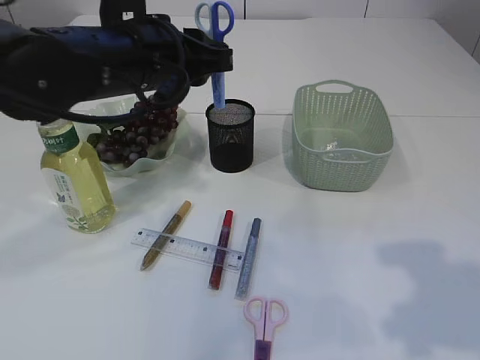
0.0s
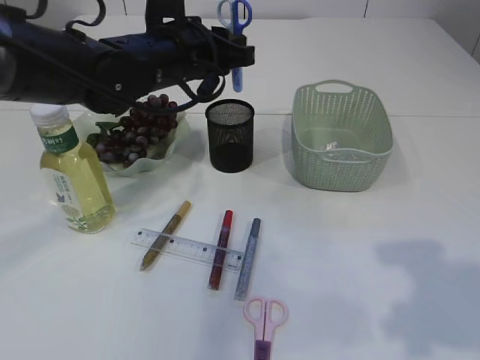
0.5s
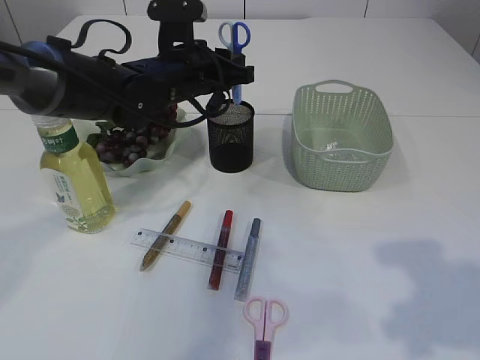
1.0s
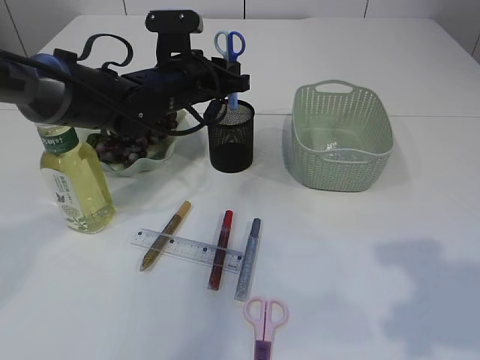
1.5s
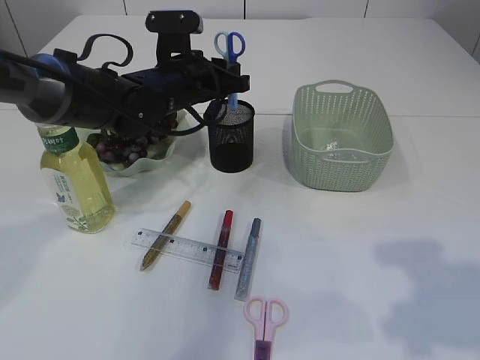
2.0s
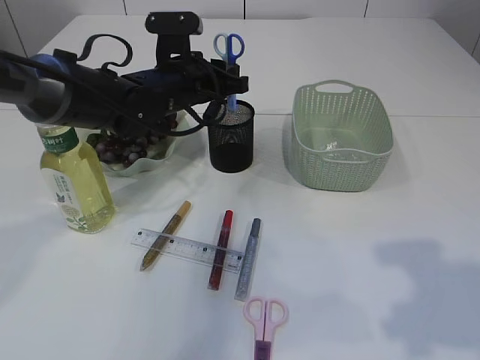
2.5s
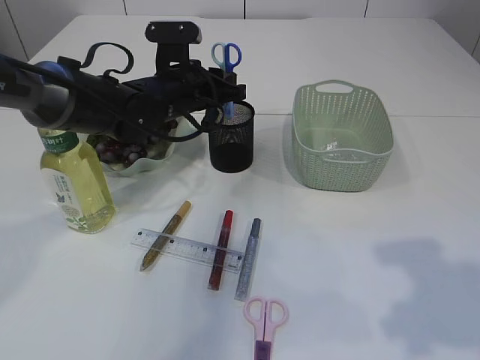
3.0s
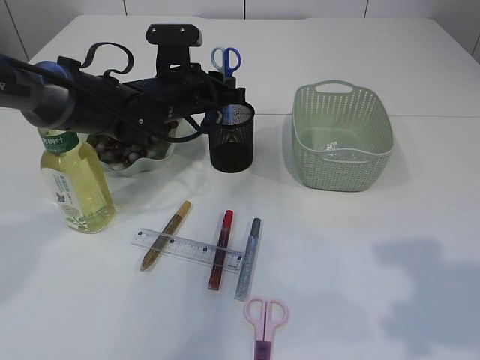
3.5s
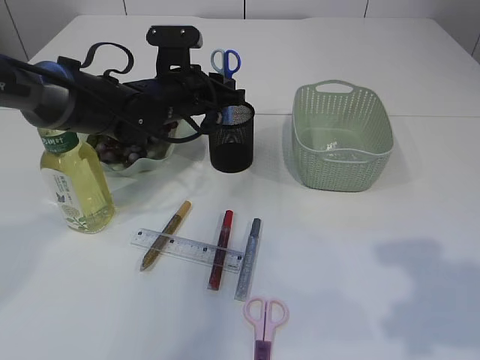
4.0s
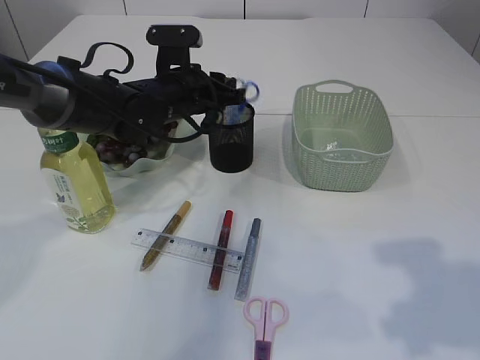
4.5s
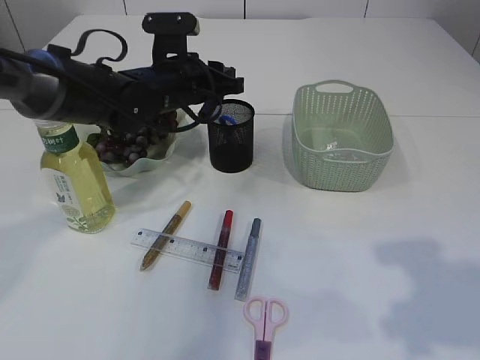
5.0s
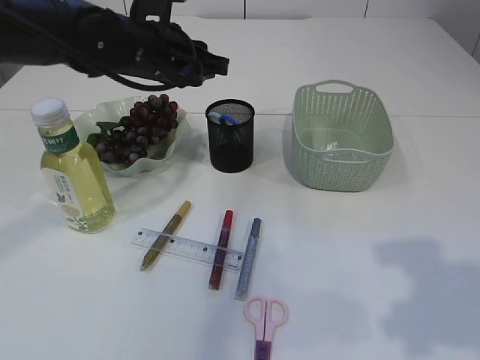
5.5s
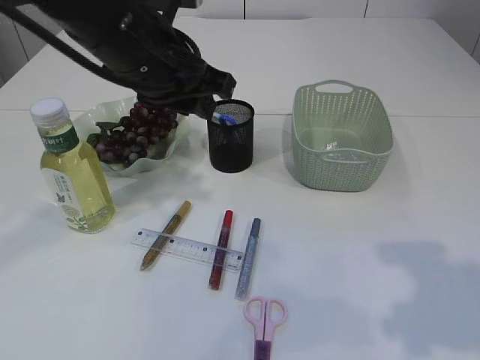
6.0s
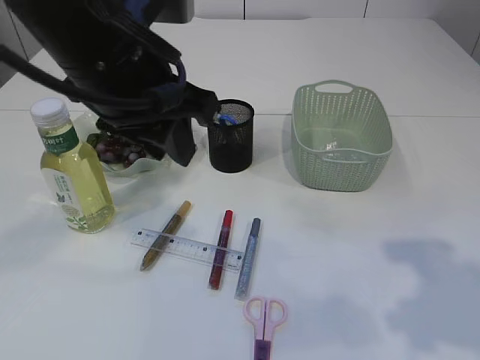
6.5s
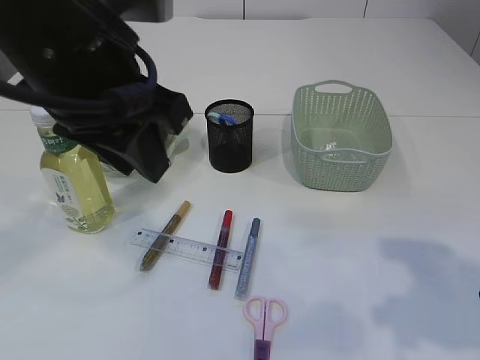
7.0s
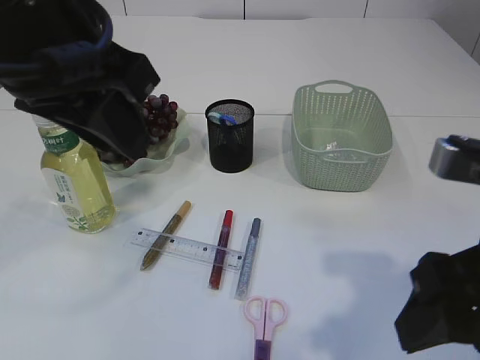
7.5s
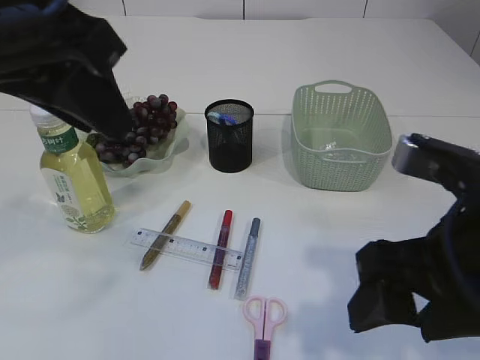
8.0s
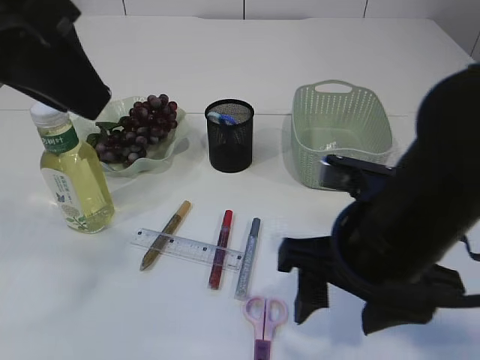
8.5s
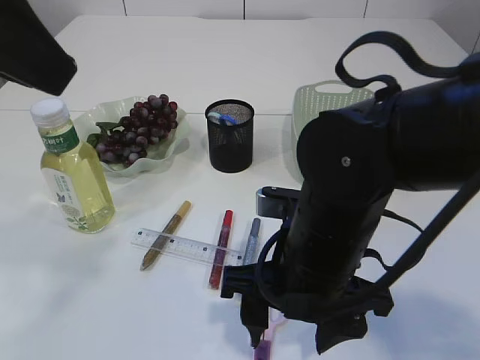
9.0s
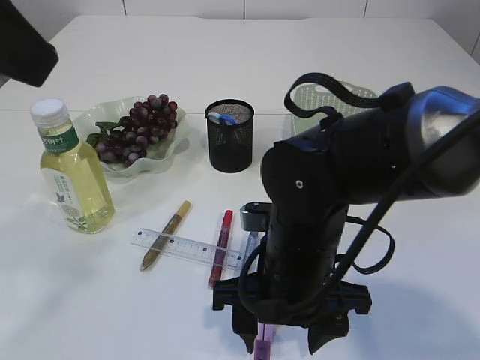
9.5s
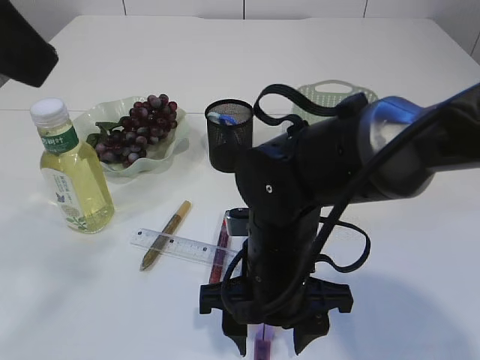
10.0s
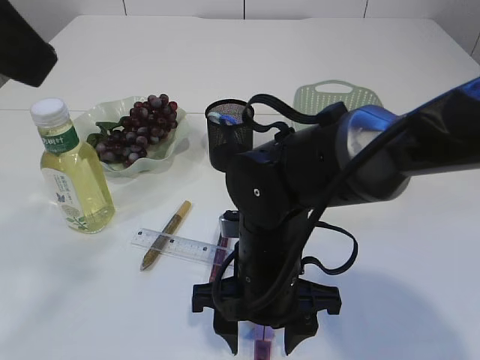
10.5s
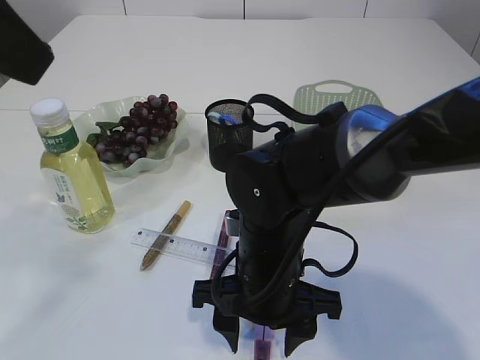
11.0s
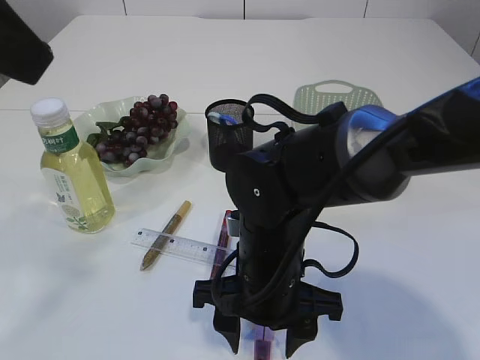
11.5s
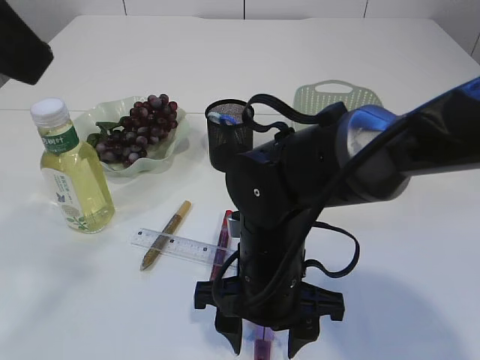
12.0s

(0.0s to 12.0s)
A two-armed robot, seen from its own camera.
Step, 0.0s - 5.0s: Place the blue scissors into the pen holder.
0.0s - 2.0s: The left gripper goes approximately 15 cm forward and downward.
2.0s - 4.0s: There are only small adjustments of the grippers.
4.0s - 6.0s: The left gripper heads upward and backward, covering about 15 cm.
6.0s - 8.0s: The left gripper moves backward and upward, approximately 15 cm, while the right gripper goes some 10 cm to the left.
8.0s - 10.0s: The left gripper ends up about 5 cm from where it was. Meanwhile the right gripper shifts some 20 cm to the left, downward and forward.
10.0s - 12.0s: The grippers stay close to where they were, moving slightly.

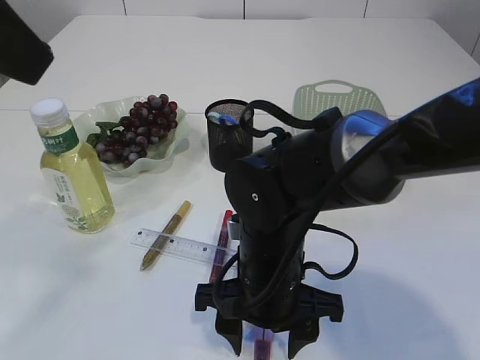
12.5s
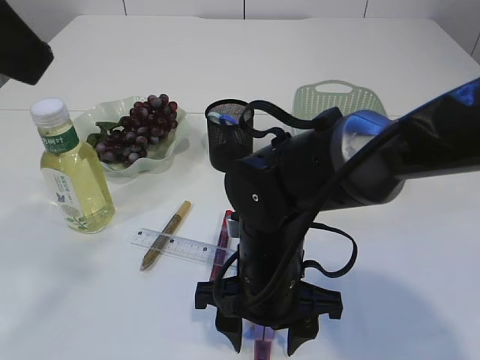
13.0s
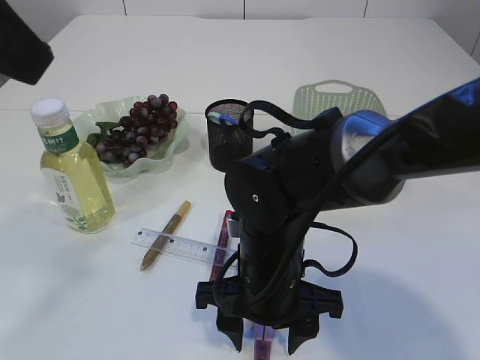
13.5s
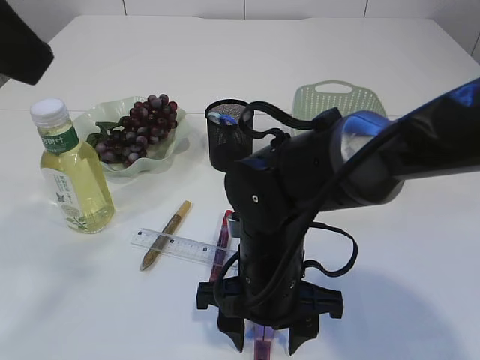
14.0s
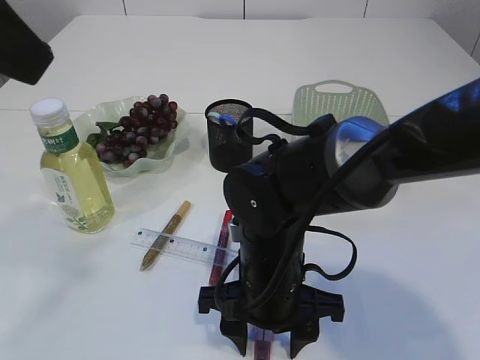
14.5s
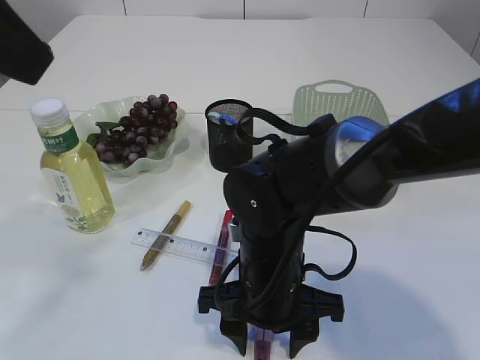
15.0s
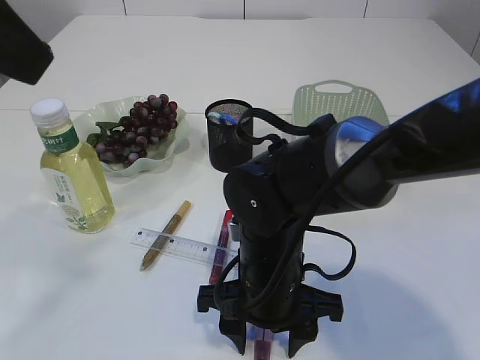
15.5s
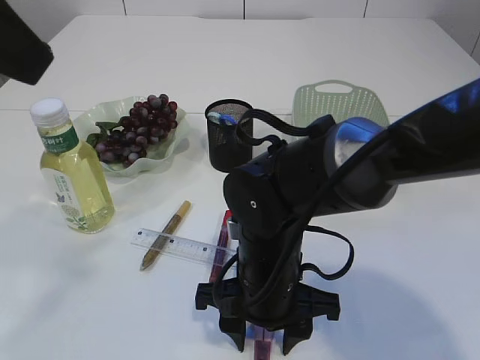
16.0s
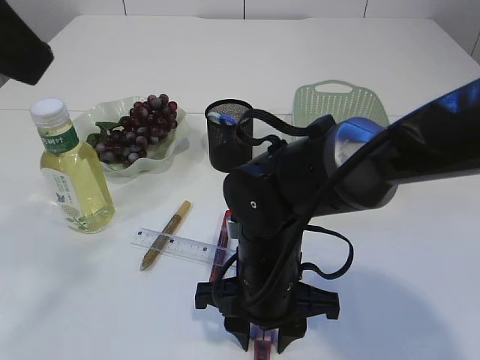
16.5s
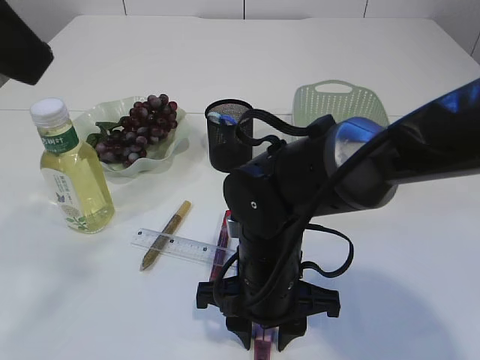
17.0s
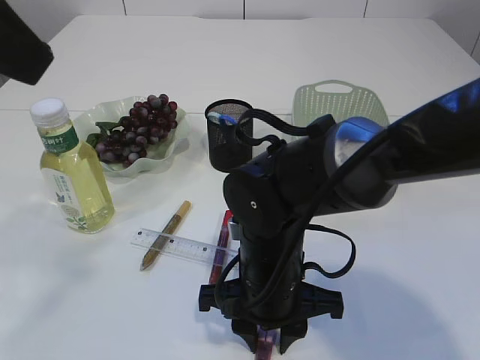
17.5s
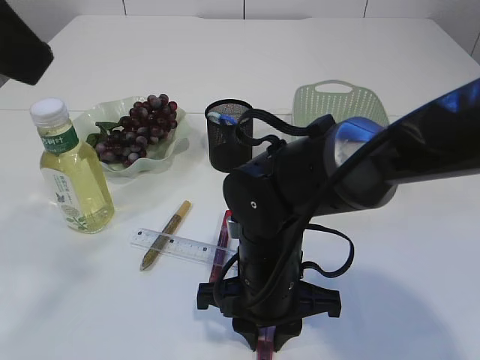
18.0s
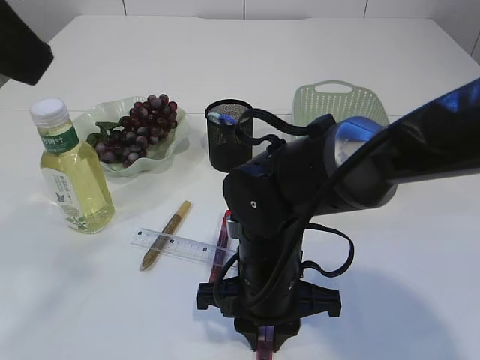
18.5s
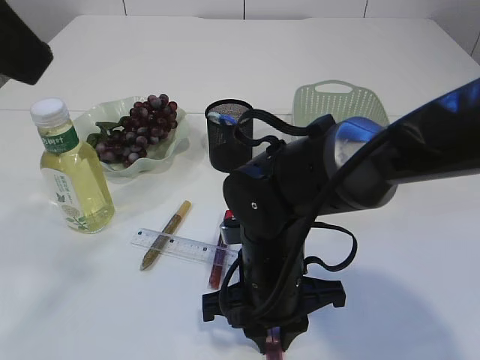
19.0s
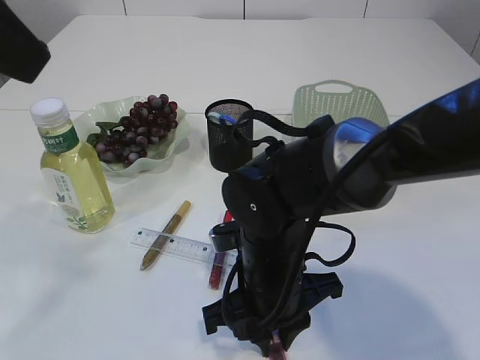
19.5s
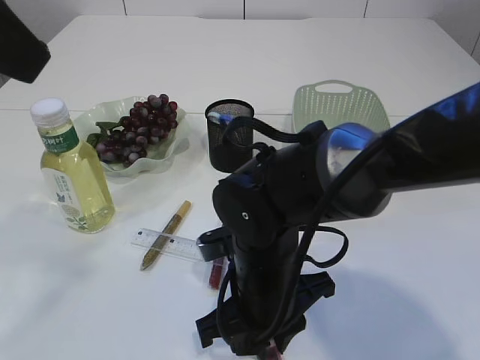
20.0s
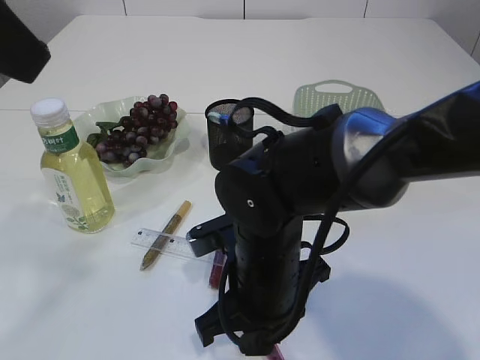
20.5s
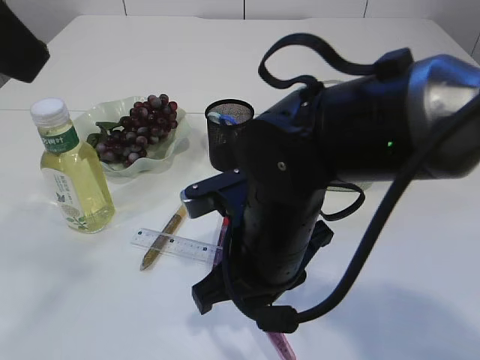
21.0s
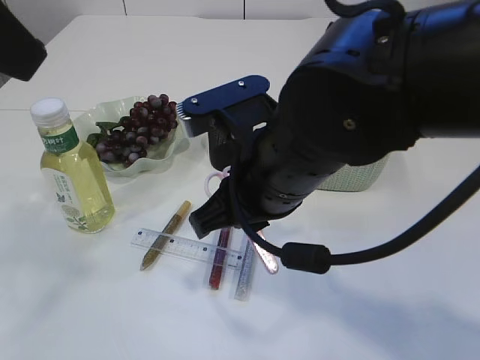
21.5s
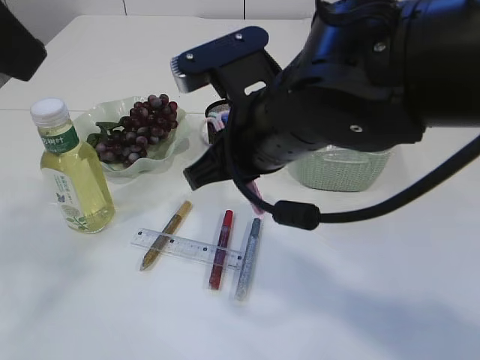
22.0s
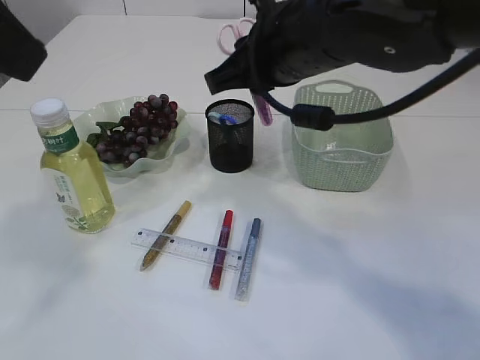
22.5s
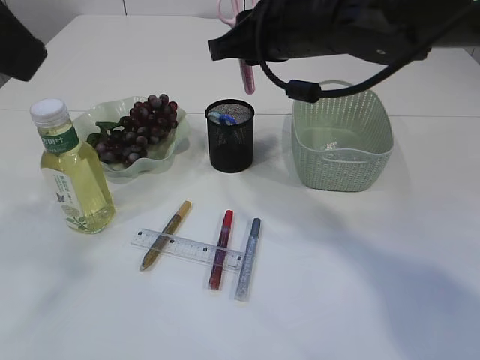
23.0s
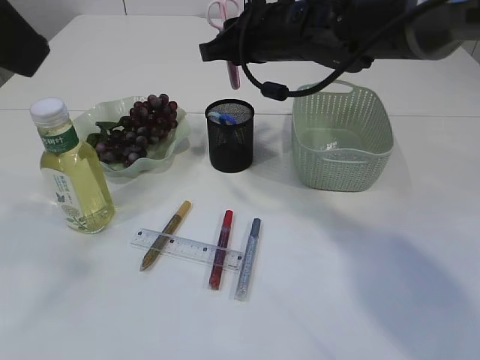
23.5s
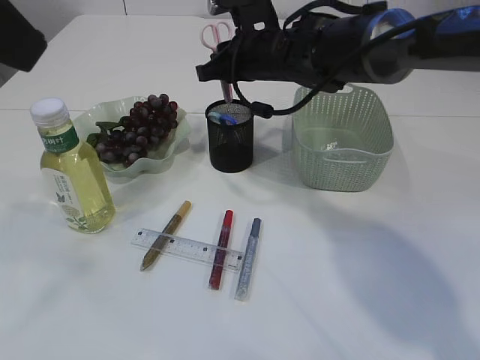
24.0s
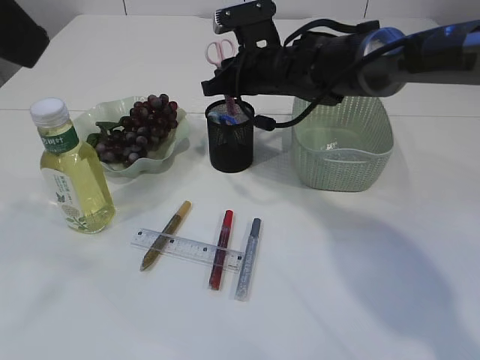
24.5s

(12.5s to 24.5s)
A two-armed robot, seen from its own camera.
Step, 12.5s - 21.0s: pick up the pink scissors.
12.5s - 16.5s: Both grippers stay about where they are.
16.5s - 18.5s: The right gripper closes up.
20.5s - 22.5s: The right gripper travels upward and forward by about 20 cm.
22.5s - 24.5s: The right gripper moves forward and downward, approximately 20 cm.

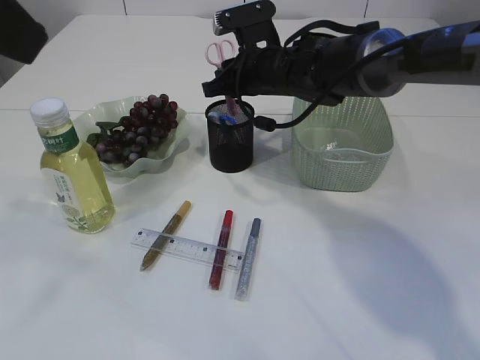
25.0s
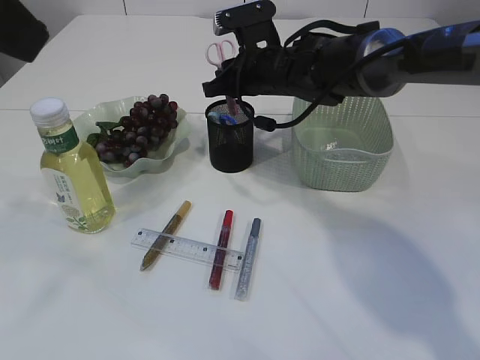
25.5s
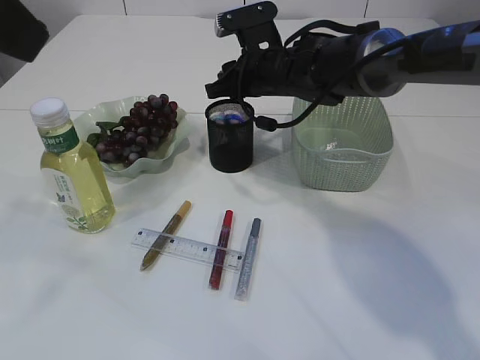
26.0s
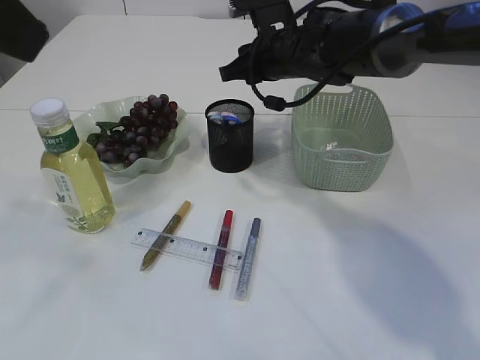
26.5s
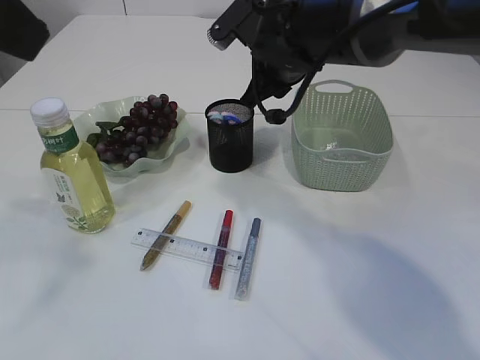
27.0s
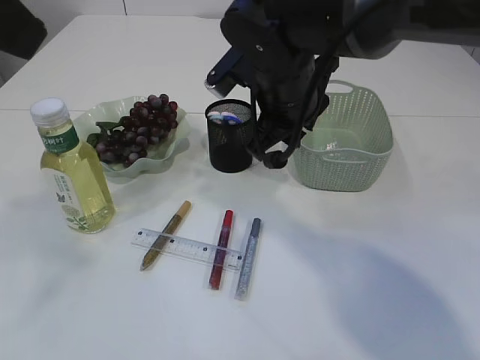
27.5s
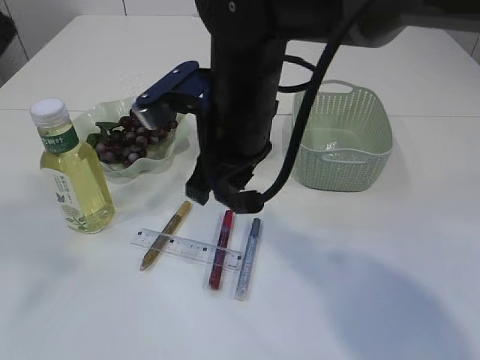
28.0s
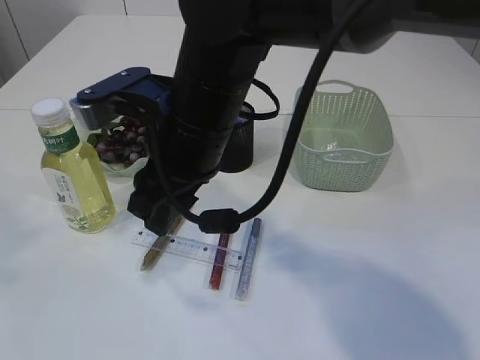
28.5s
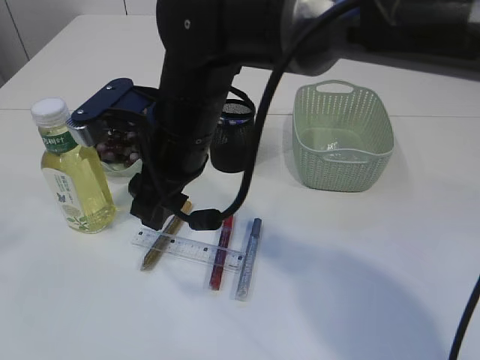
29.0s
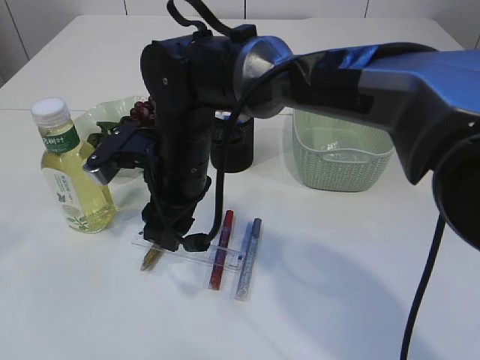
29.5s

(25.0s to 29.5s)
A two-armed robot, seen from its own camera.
25.0s - 27.0s: The right gripper shifts by approximately 5 cm.
27.0s - 29.5s: The left gripper travels to the left and backward by some 10 cm. Meanwhile the right gripper goes roughly 15 cm to the left, backward and downward, and opens up.
